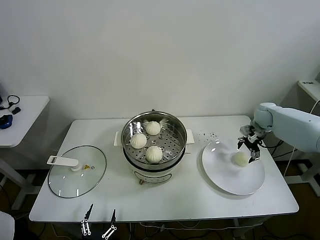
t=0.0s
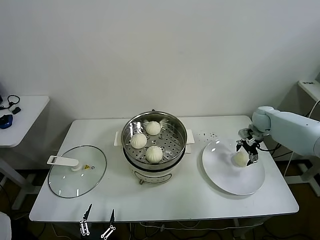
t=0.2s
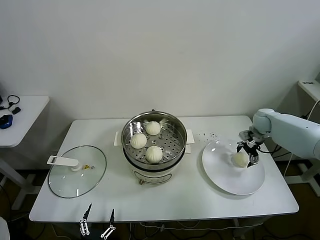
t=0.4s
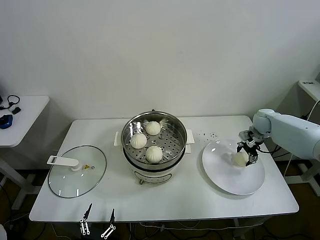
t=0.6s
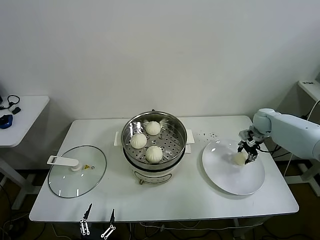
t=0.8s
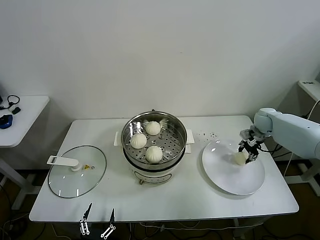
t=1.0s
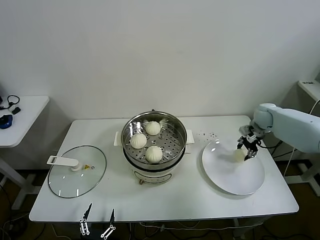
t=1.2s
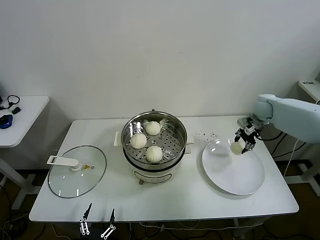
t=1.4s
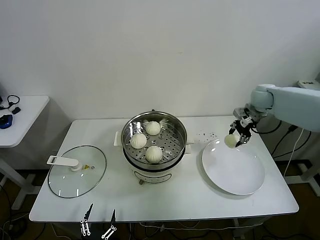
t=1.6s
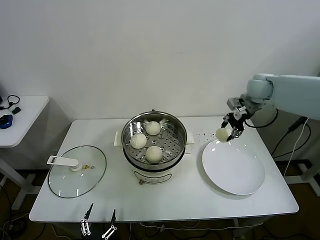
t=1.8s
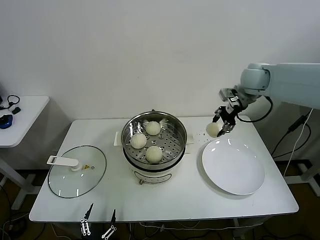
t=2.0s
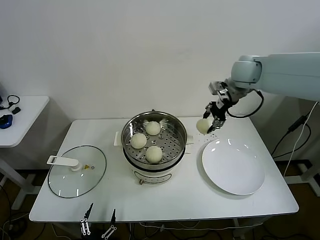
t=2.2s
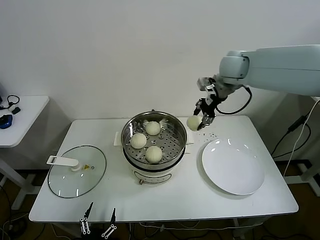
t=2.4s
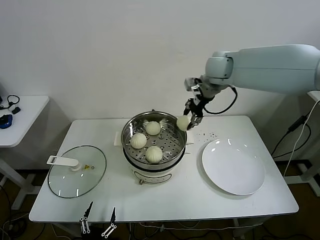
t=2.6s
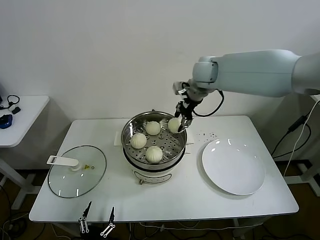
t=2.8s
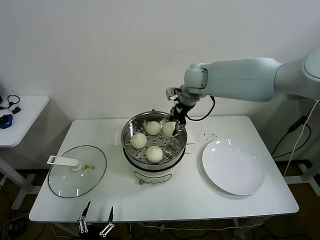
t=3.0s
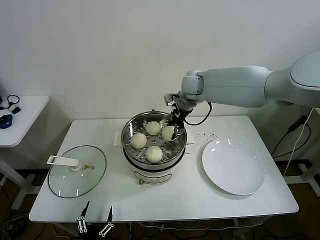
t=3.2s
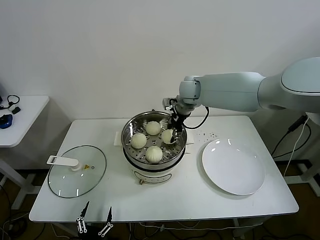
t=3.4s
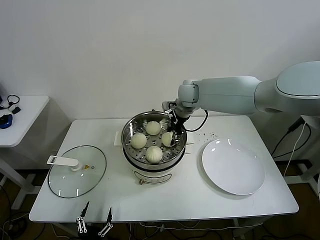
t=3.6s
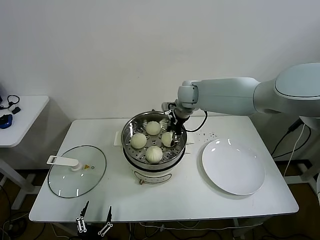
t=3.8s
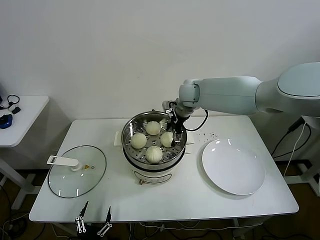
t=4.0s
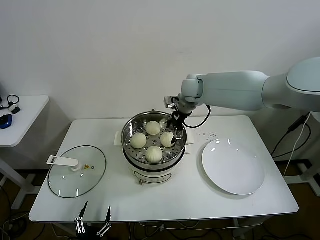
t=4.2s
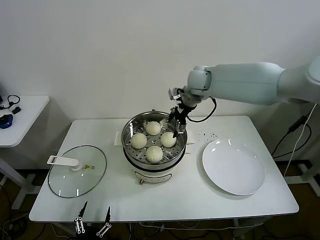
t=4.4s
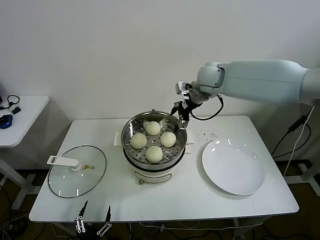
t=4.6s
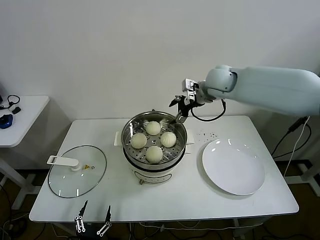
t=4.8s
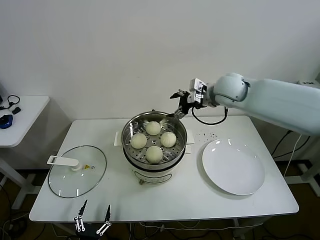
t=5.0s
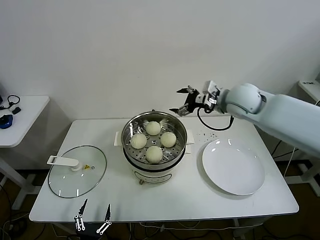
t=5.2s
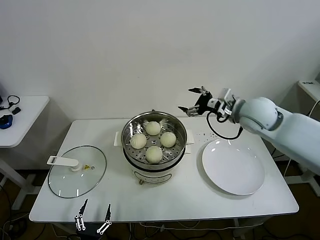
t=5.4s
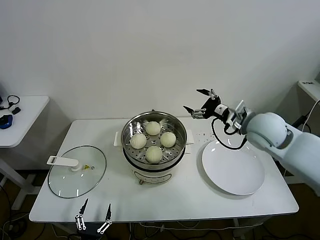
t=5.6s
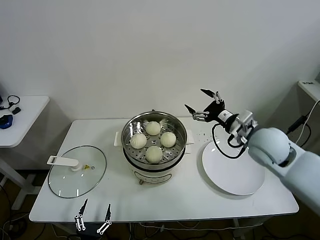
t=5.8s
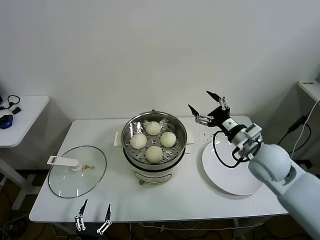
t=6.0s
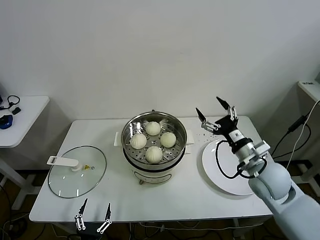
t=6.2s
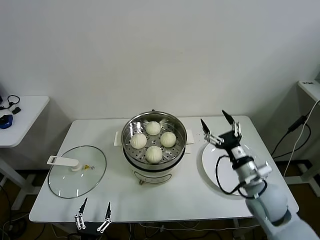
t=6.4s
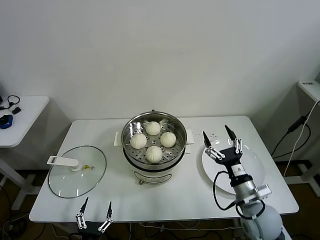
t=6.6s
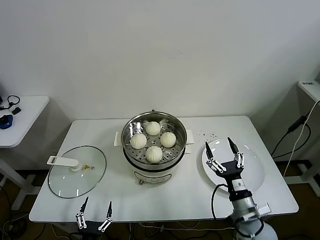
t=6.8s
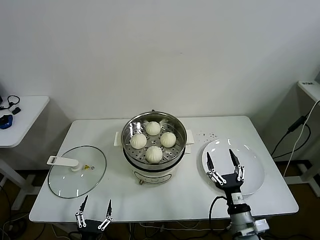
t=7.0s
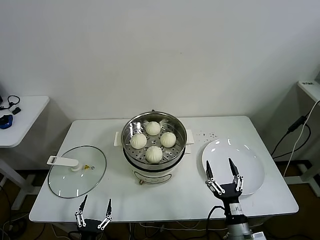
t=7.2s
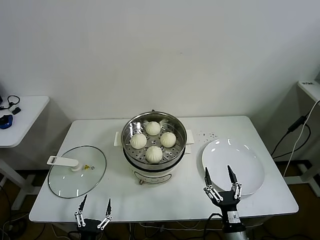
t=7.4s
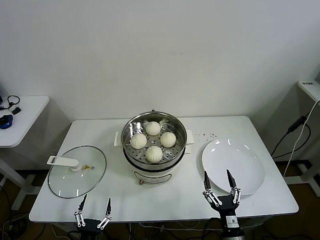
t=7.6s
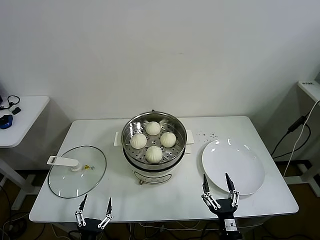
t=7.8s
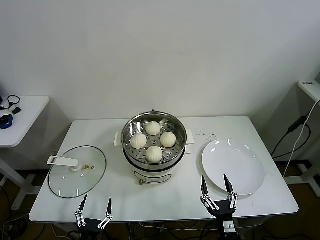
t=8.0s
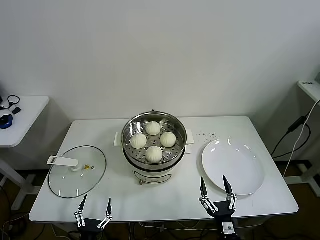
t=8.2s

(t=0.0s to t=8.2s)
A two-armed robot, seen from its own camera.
Task of the whole recording: take steamed baozi put them in steamer.
Step, t=1.0s - t=4.2s: Place the baozi on the steamer with right gripper.
t=0.0s - t=1.6s: The right gripper shifts roughly 10 cm upward, and closes its fingers.
t=1.6s - t=3.2s: The right gripper travels to the left by some 25 cm.
t=3.2s - t=5.0s: The right gripper shifts approximately 10 cm to the right and backward, and opens up.
t=5.0s - t=6.6s: The right gripper is displaced backward and downward by approximately 35 cm.
t=6.6s - t=8.2s: The right gripper moves backward, downward and to the left, about 20 cm.

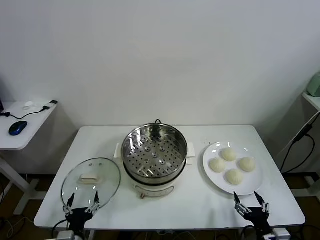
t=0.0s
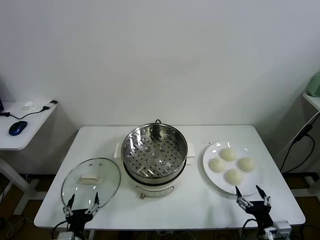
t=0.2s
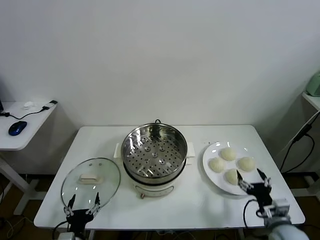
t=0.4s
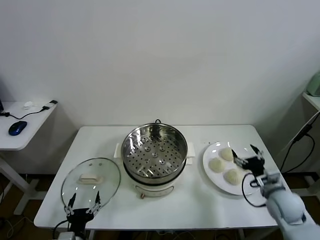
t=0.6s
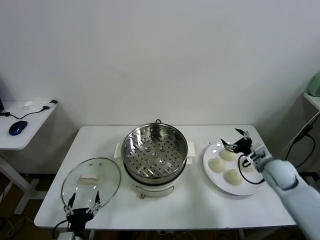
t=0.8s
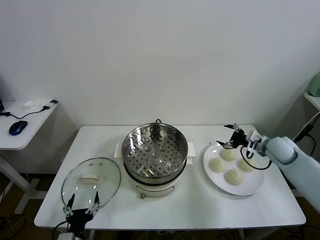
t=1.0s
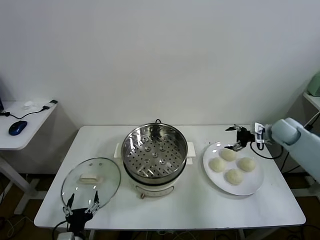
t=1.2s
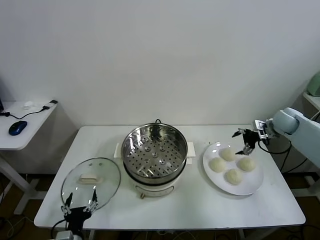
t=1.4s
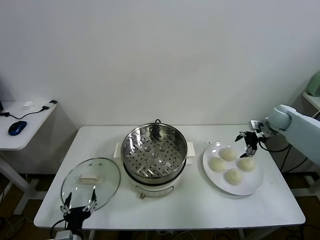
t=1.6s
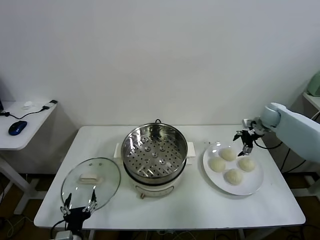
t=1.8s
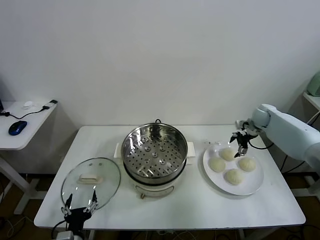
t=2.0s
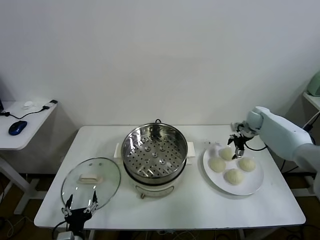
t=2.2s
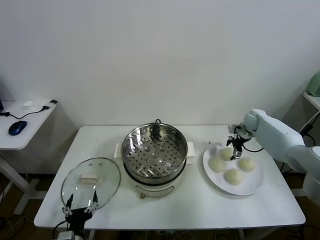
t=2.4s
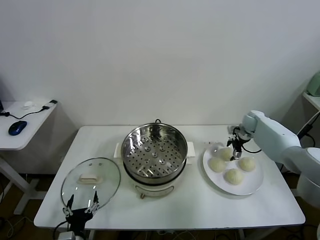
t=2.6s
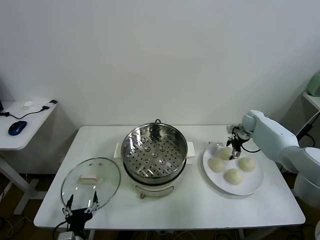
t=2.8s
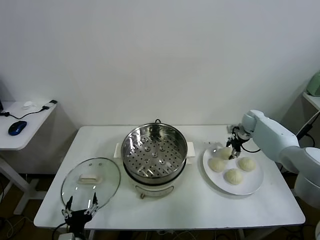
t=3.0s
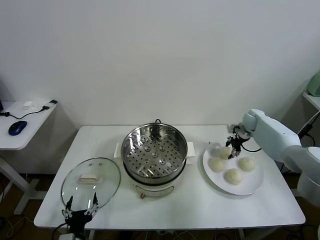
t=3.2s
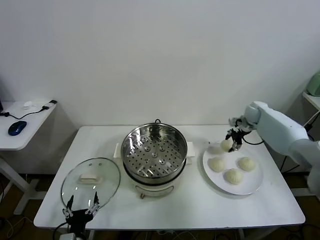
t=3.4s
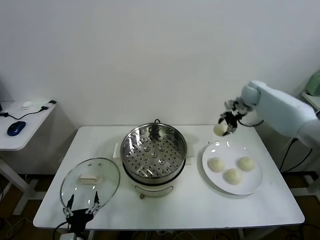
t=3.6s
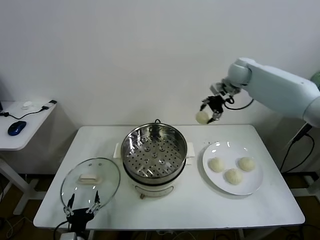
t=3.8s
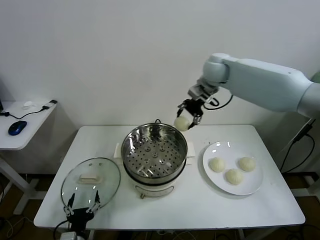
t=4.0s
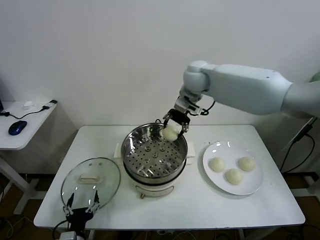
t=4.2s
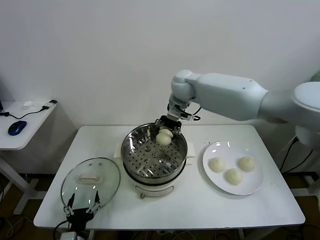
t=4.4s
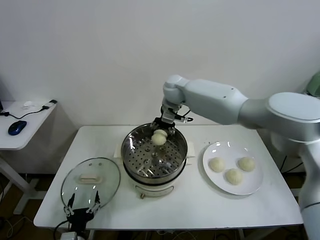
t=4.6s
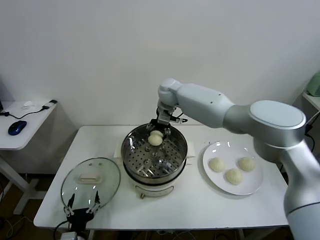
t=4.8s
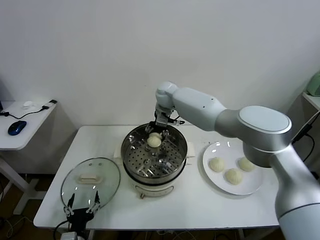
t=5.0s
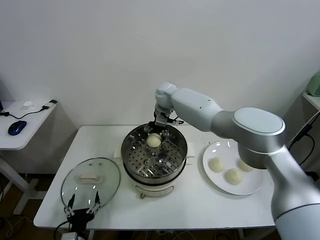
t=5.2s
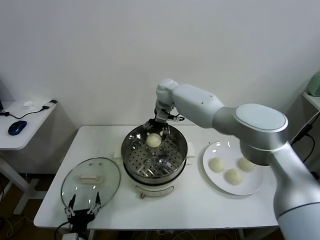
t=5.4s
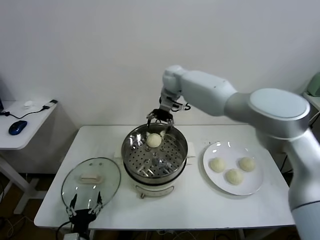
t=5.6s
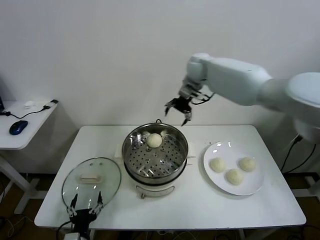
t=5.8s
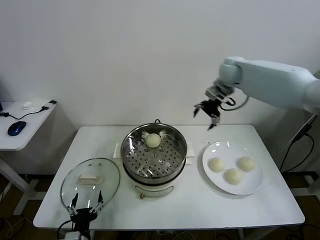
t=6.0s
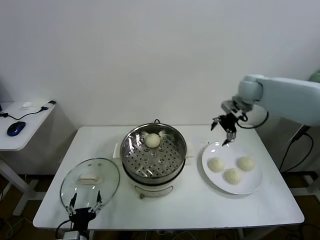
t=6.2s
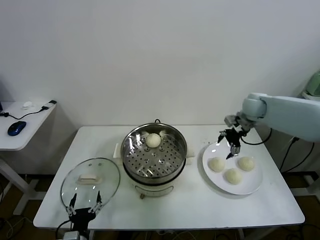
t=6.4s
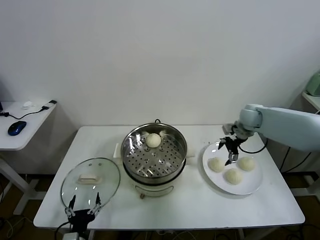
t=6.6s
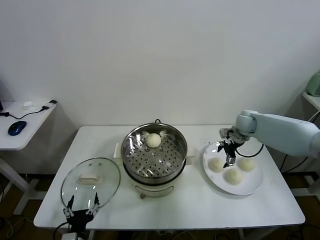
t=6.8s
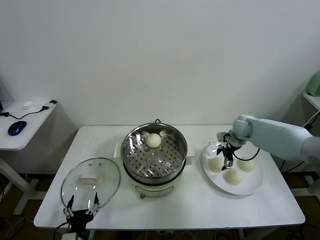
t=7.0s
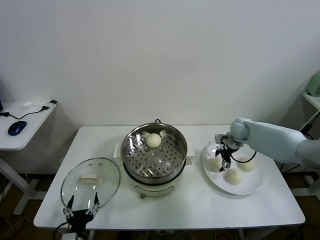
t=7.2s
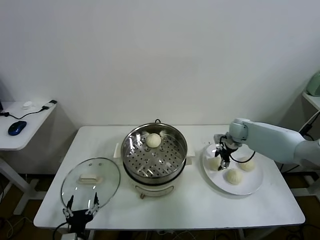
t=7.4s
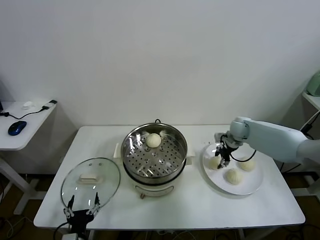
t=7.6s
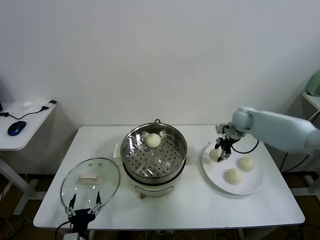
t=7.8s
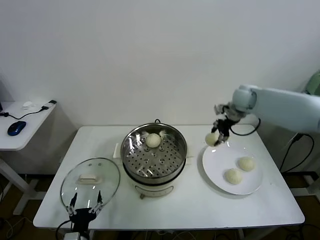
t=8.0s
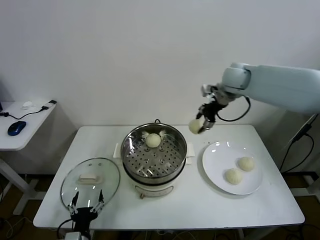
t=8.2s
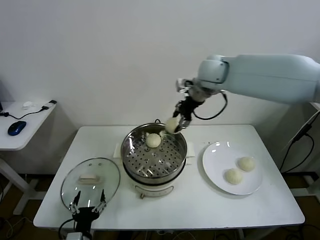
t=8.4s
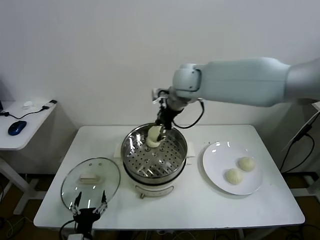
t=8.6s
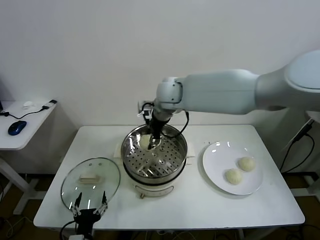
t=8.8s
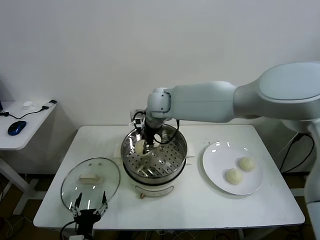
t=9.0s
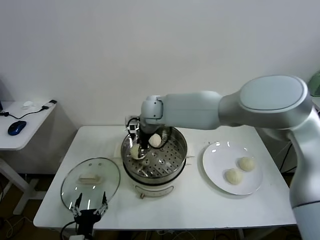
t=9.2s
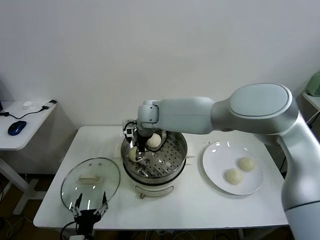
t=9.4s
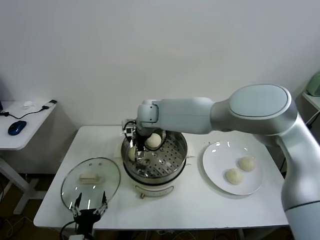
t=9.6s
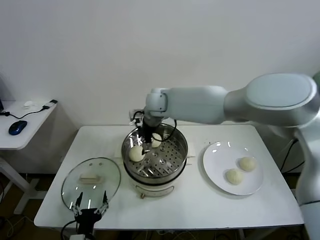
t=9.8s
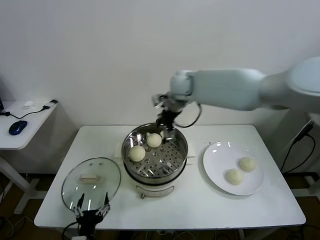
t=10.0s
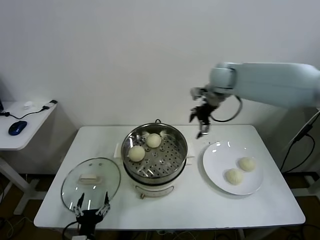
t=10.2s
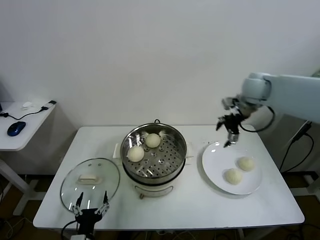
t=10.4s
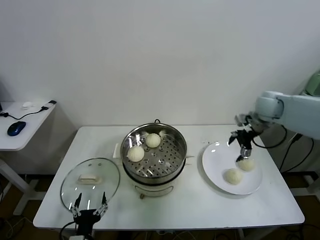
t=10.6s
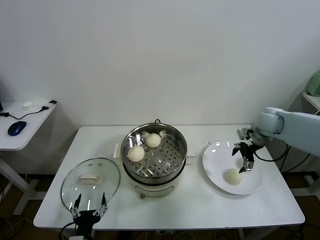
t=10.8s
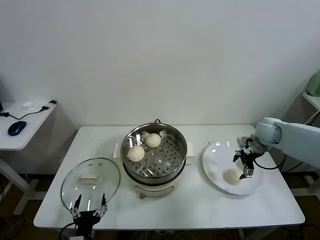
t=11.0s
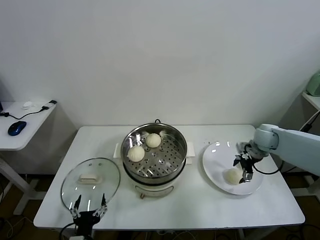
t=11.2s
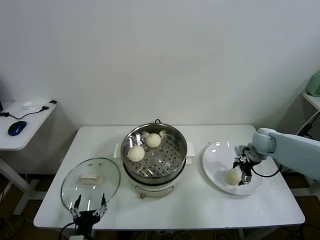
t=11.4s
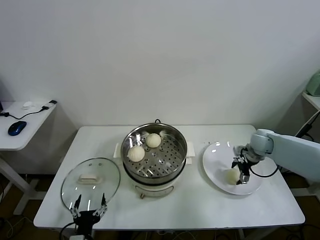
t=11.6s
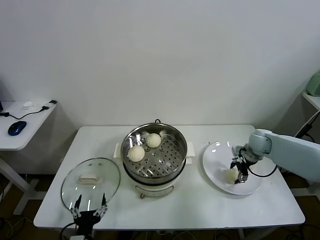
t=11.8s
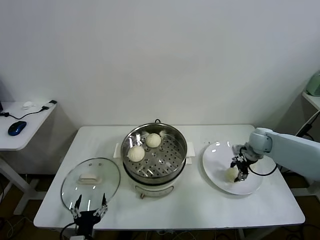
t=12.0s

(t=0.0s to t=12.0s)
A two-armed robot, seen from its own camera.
Task of the whole recording: take steamed baozi put them in steamer.
Step, t=0.0s - t=3.0s: Grasp the baozi in the plate with right gripper.
Step, t=3.2s - t=5.4s: Place the baozi on the steamer with right gripper.
Step, t=5.6s - t=7.6s: Grasp the baozi in the plate with right gripper.
Step, t=7.8s - t=9.8s: Place the baozi on the steamer with right gripper.
Step, t=10.0s - t=11.8s: Grasp the baozi in the plate with right gripper.
t=1.6s - t=3.0s: The right gripper shifts some 5 cm downward, and closes its fingers.
t=3.0s - t=4.4s: The right gripper goes roughly 40 cm to the left and upward.
t=4.4s - t=6.0s: The right gripper heads to the right, covering approximately 25 cm, and opens its fingers.
t=6.0s - t=7.6s: The right gripper heads downward, covering some 20 cm, and closes.
t=7.6s - t=9.0s: The right gripper is displaced to the left by roughly 35 cm.
t=9.0s - t=10.4s: The right gripper moves to the right, about 35 cm, and opens up.
t=10.4s - t=12.0s: The right gripper is displaced downward by about 20 cm, and closes up.

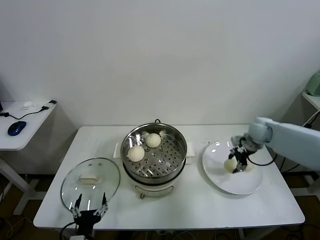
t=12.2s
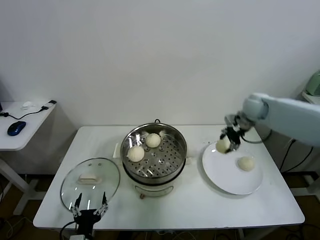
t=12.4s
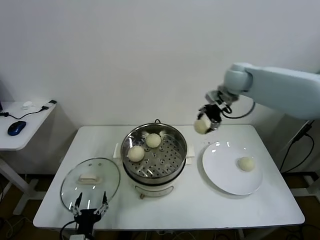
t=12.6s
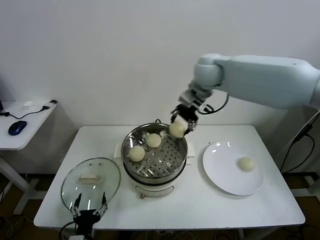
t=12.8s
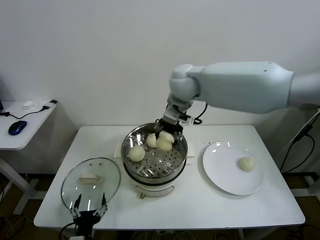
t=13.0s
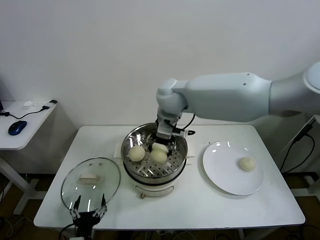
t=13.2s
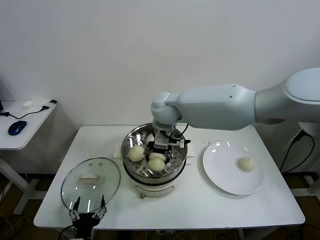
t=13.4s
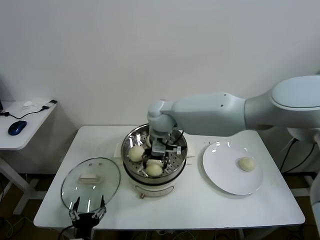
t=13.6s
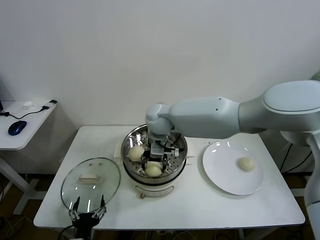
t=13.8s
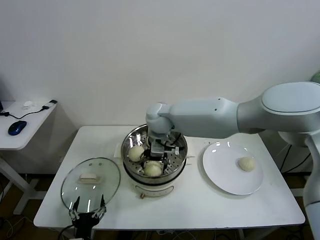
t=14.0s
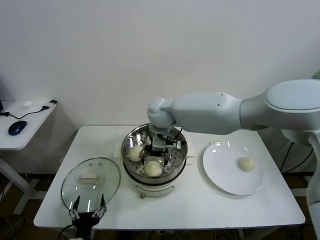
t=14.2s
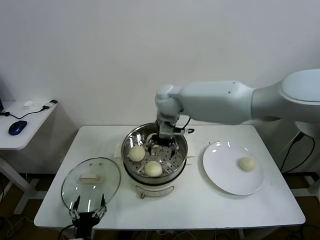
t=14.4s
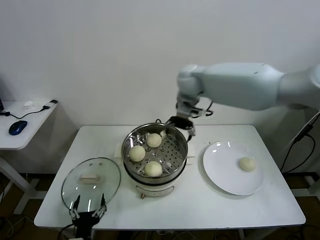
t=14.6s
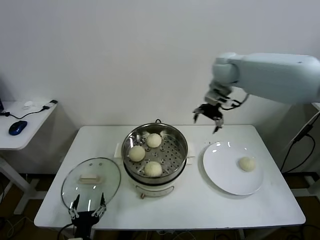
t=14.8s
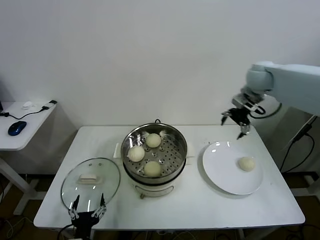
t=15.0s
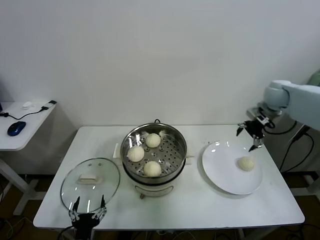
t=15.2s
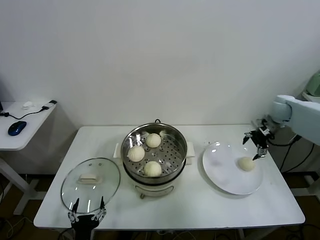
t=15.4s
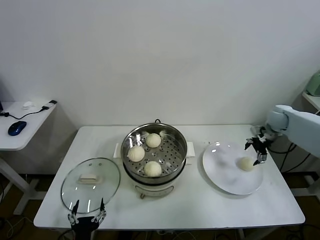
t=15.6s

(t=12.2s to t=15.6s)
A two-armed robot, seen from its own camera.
Task of the whole recording: take steamed baozi put them in steamer.
Step, t=12.2s - t=14.2s: Place the baozi on the steamer with right gripper.
t=12.2s - t=13.8s: The right gripper goes some 40 cm to the left, and opens.
t=13.8s - t=15.6s: The right gripper shifts some 50 cm to the right.
